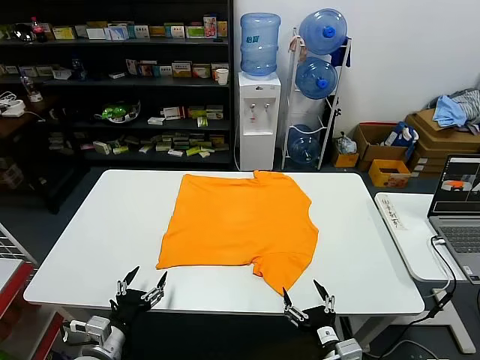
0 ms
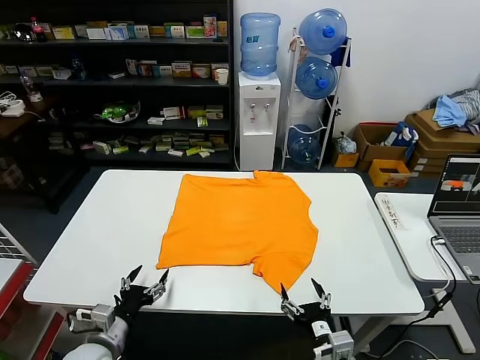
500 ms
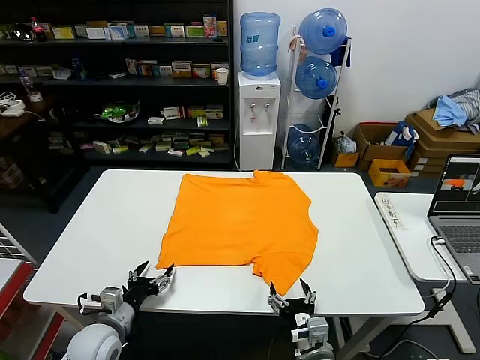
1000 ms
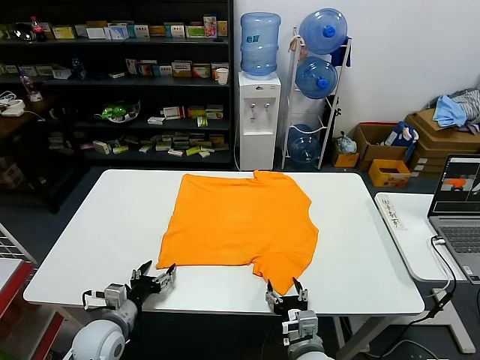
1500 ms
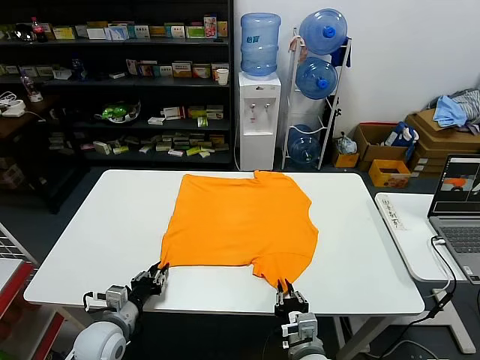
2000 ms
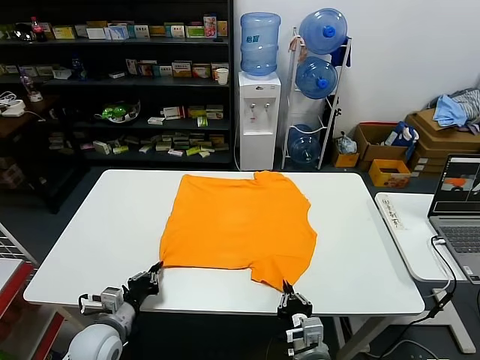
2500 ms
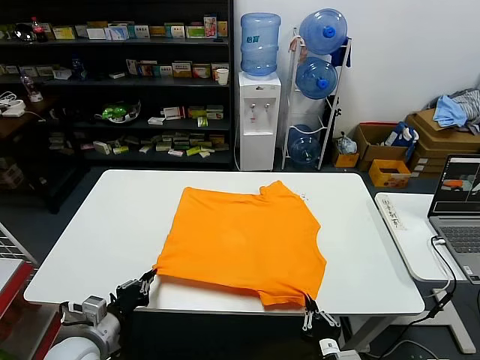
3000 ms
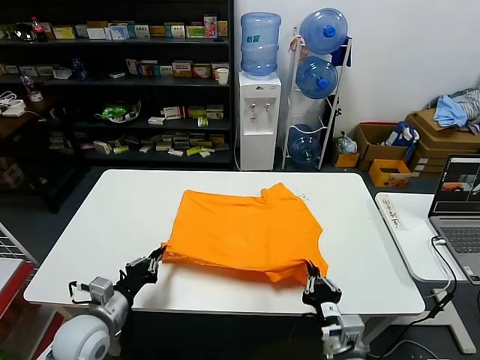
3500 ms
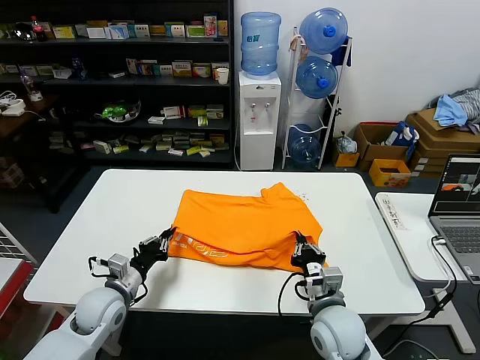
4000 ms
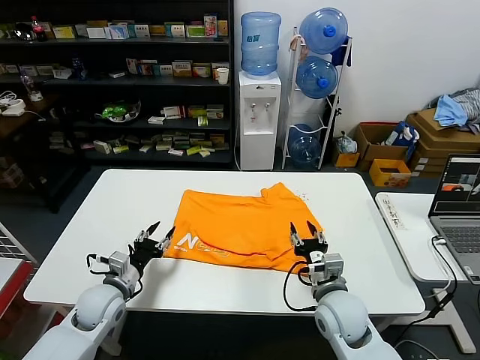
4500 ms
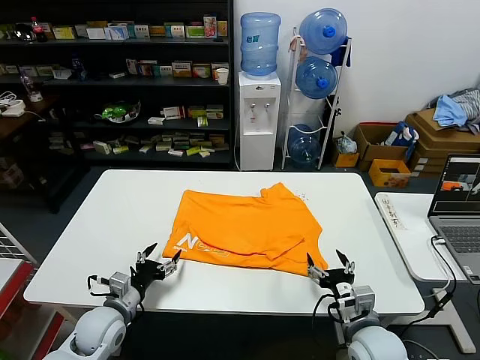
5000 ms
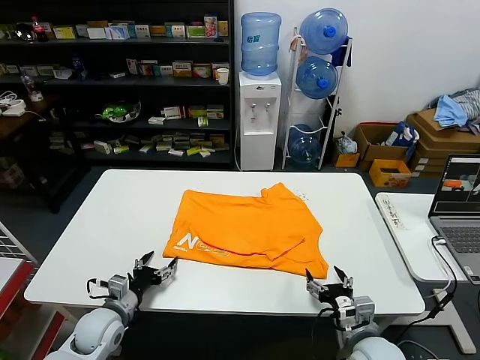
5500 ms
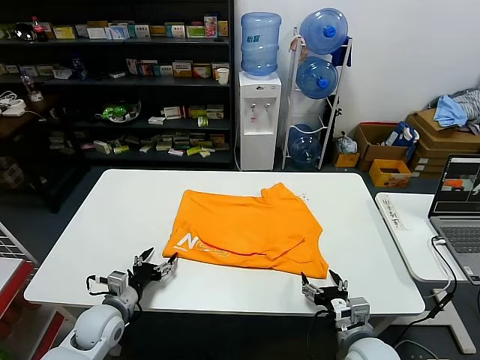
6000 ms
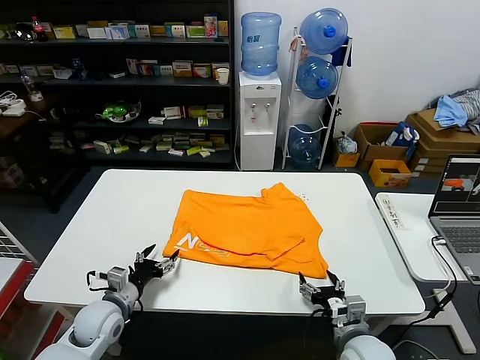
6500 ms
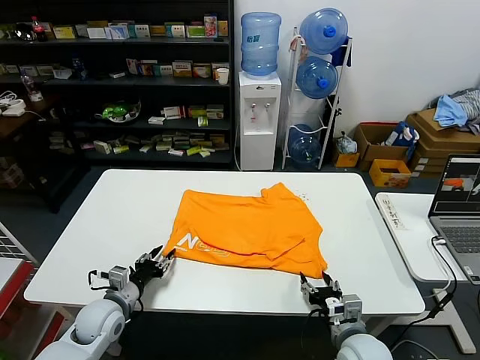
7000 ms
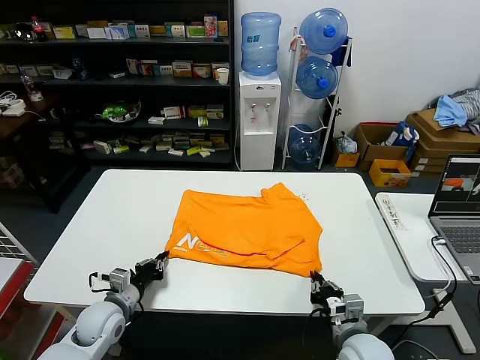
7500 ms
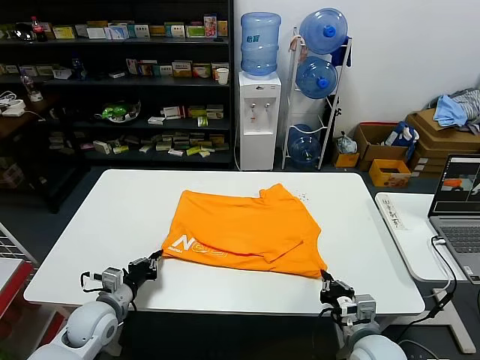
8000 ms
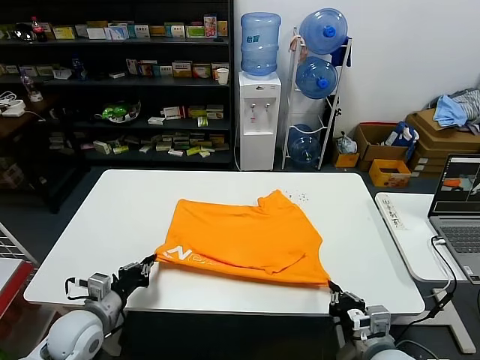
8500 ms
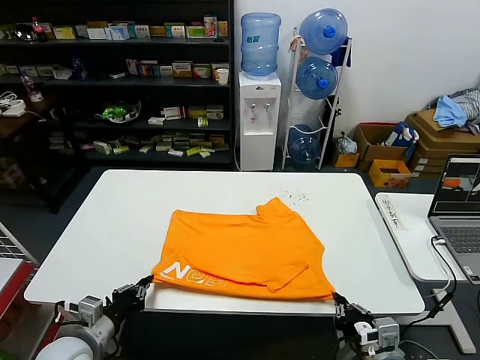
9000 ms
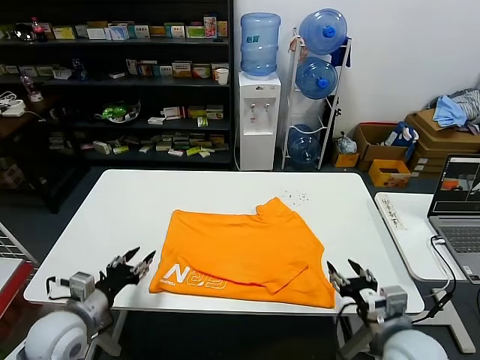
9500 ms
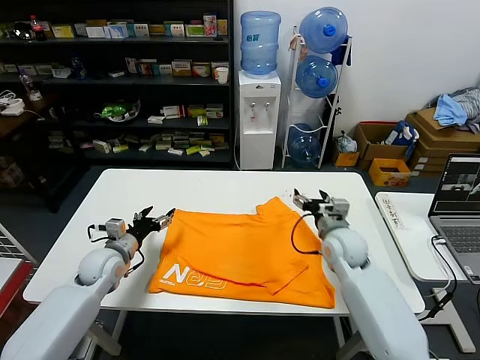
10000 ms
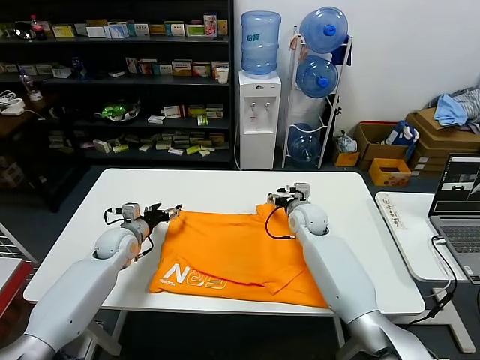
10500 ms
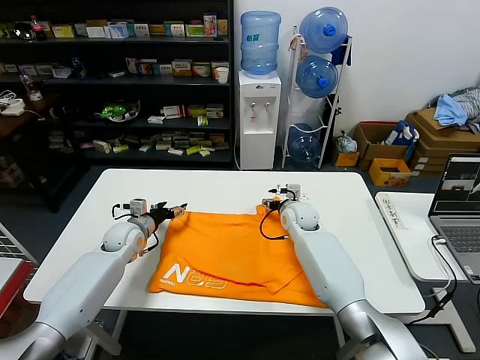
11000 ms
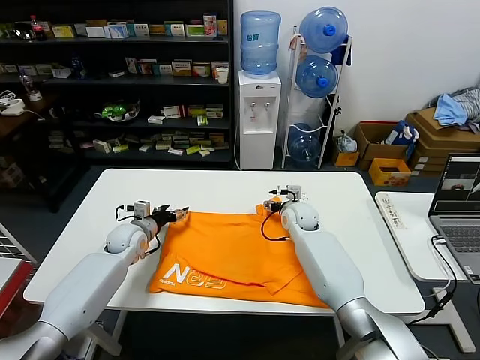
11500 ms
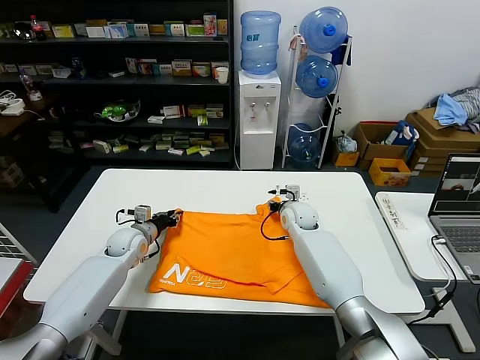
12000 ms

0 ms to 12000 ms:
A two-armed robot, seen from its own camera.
Task of the whole recording: fold and organize the clothes.
Step, 0 ms to 2500 ms: use both grippers simultaneously to clamp the lower edge of the clothing fabric.
Step, 3000 ms to 4500 ms: use both grippers to drag the lower edge of the fabric forward and fold it over the upper edge.
Step, 5000 ms to 9000 ms: Drag the clothes downward with both gripper.
2000 ms to 4000 ms: The left gripper shifts some 5 cm forward. The right gripper moves forward and upward, roughly 10 cm.
4000 ms to 6000 ms: The left gripper shifts by approximately 5 cm, and opens its fingers. The right gripper moves to the right and backward, roughly 10 cm, and opens up.
6000 ms to 8000 ms: The right gripper closes; the left gripper closes up.
8000 ms to 10000 ms: The right gripper shifts some 25 cm forward, and opens up, while the left gripper travels forward by some 10 cm, and opens.
10000 ms to 12000 ms: The right gripper is displaced forward and to the left by about 10 cm, and closes. Meanwhile the left gripper heads forward, covering approximately 10 cm, and closes.

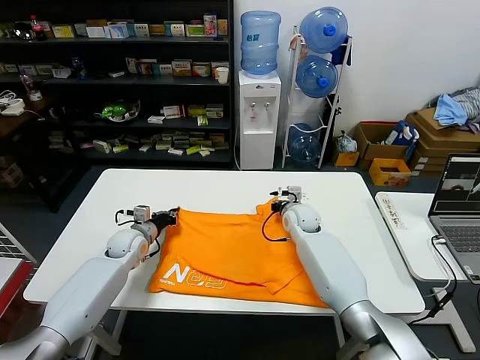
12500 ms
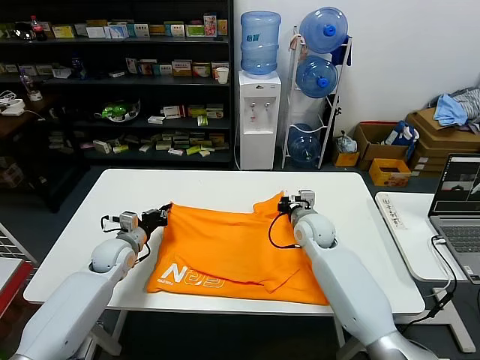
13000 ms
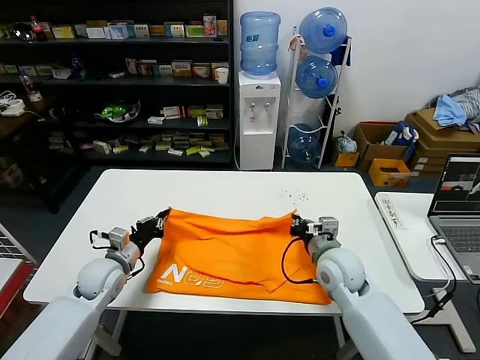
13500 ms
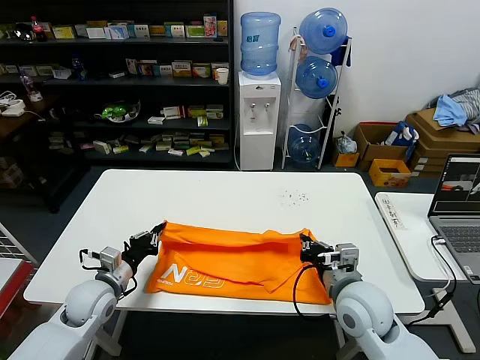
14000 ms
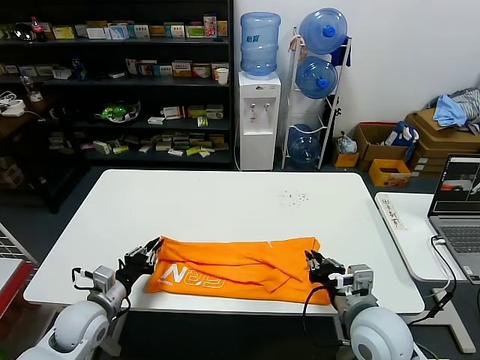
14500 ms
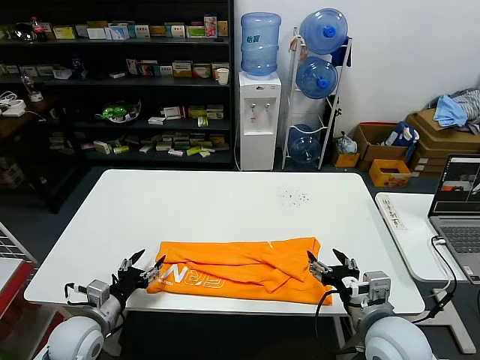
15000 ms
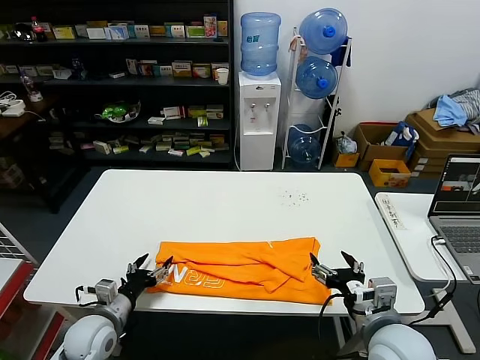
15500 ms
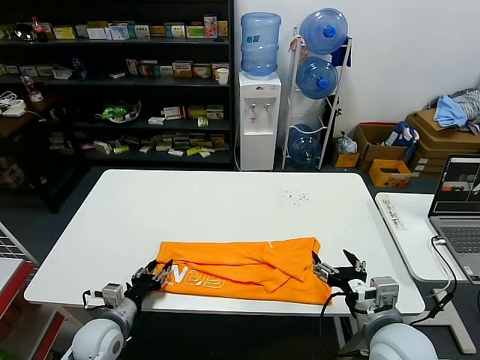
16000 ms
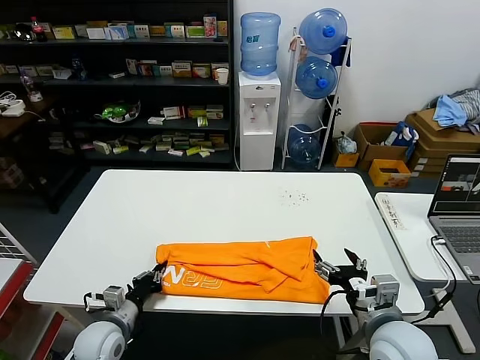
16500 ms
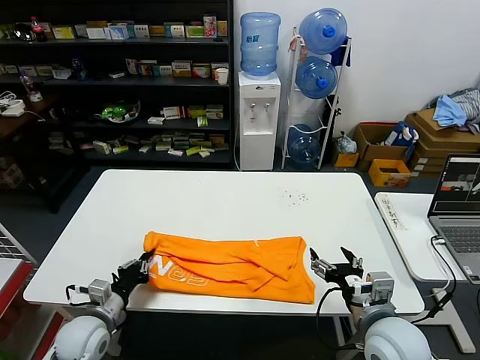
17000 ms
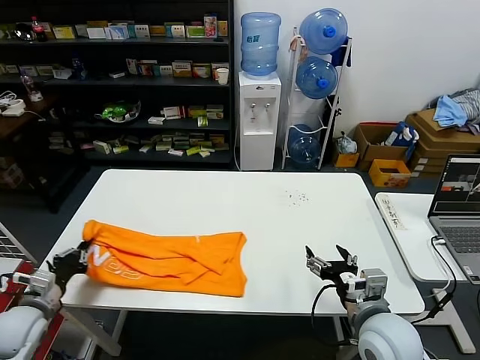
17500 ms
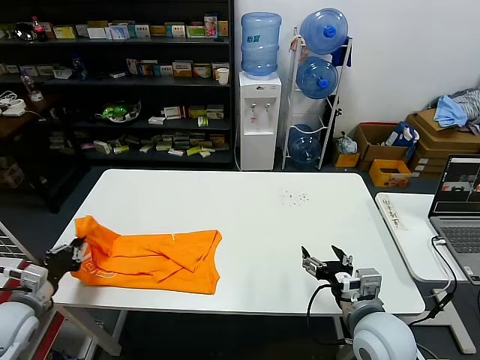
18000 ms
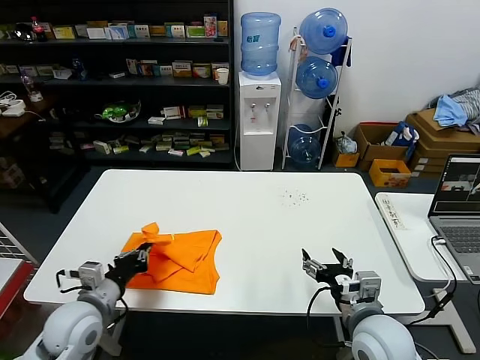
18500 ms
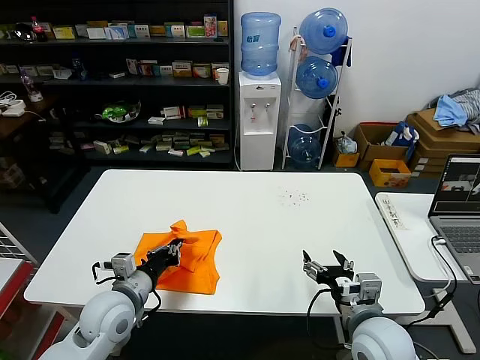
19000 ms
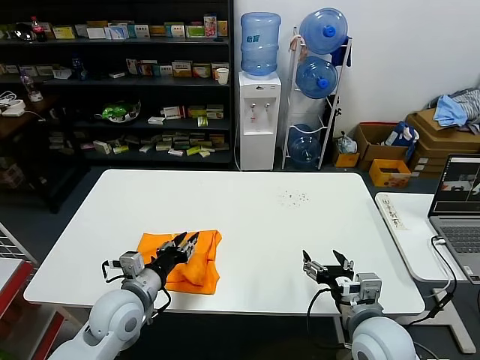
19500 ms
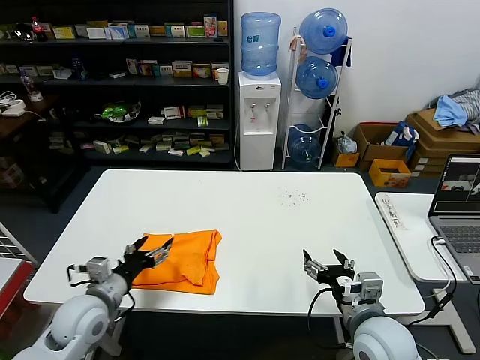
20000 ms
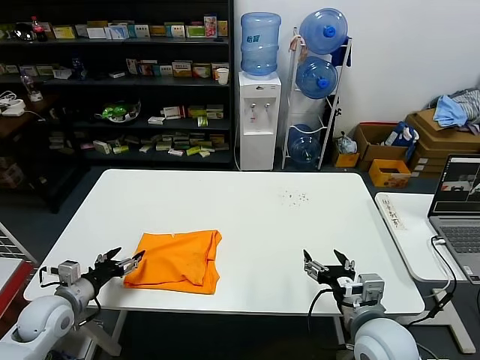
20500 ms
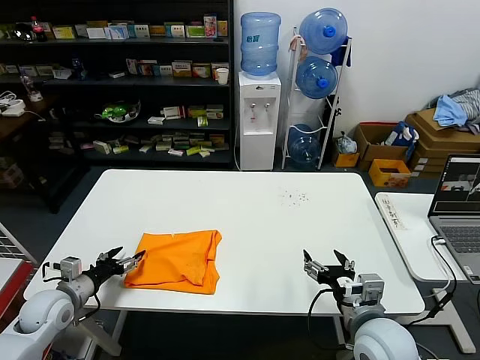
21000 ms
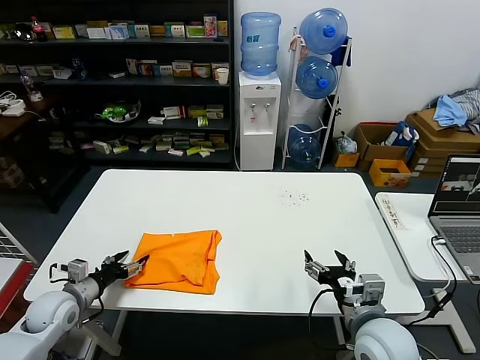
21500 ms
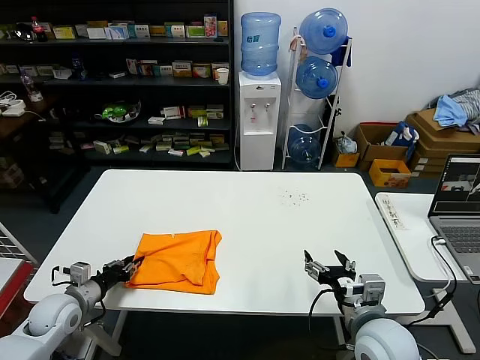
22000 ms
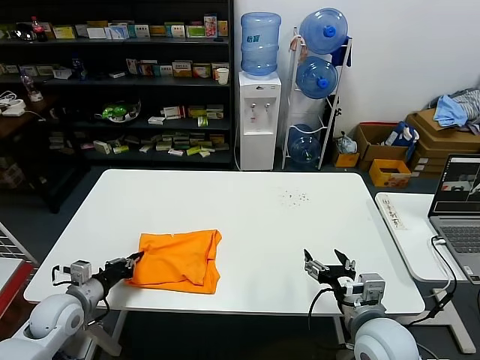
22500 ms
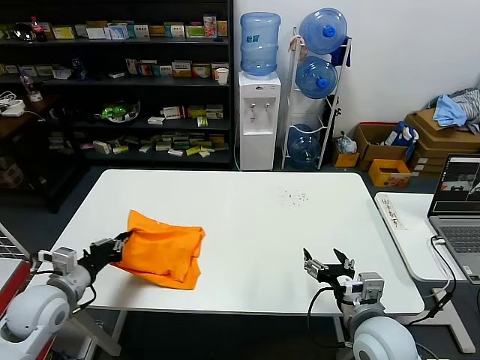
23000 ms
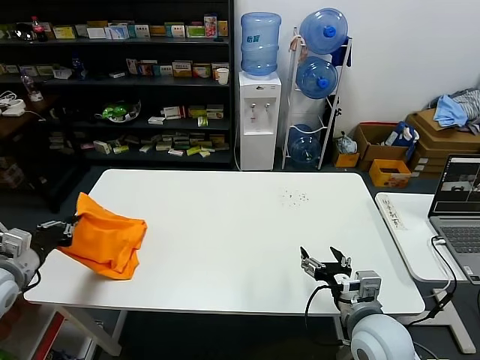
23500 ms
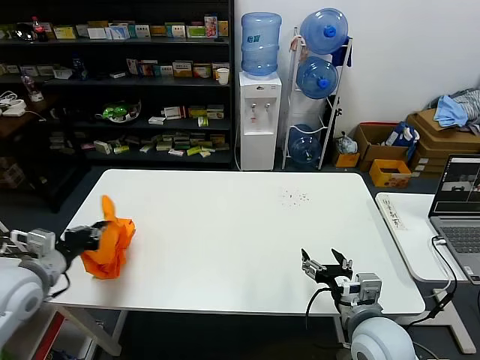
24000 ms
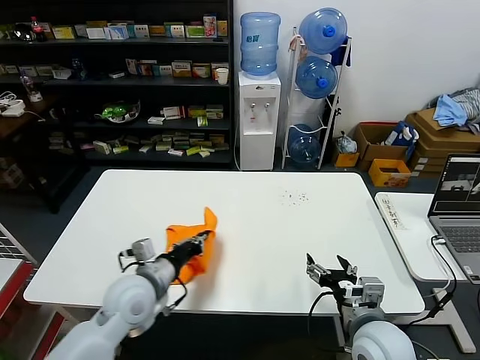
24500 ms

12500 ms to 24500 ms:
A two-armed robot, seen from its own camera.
Task of the whole recording: fold and organize the clothes.
Step, 13000 ms to 14500 ms: use both grippers to drag the upper edge of the fabric backward and fold it over the lower edge.
Step, 15000 ms to 16000 ms: use the left gripper to clamp the left edge of the fabric.
Step, 16500 ms to 19500 ms: use the left gripper to drag the left edge of the fabric to the left and folds it over the right edge.
12500 ms to 14500 ms: The right gripper travels backward by roughly 30 cm. Meanwhile the left gripper travels backward by some 20 cm.
14500 ms to 16500 ms: The right gripper opens its fingers. The left gripper heads downward, covering some 5 cm, and opens and closes again.
16500 ms to 18500 ms: The left gripper moves upward, some 10 cm, and goes to the left and returns, about 15 cm each way.
18500 ms to 20500 ms: The left gripper shifts about 10 cm to the left, and opens up.
20500 ms to 22500 ms: The left gripper closes.
22500 ms to 24500 ms: The left gripper moves to the right and upward, roughly 20 cm.

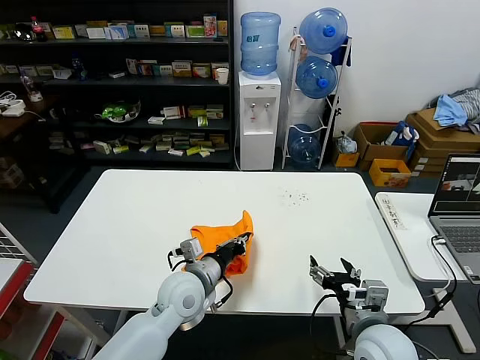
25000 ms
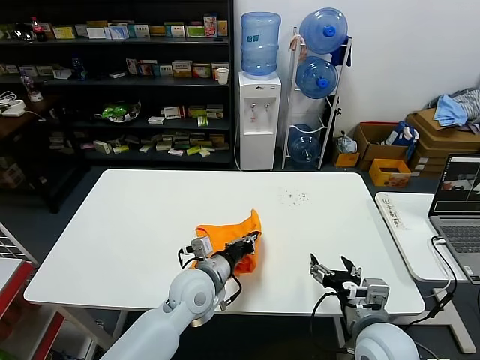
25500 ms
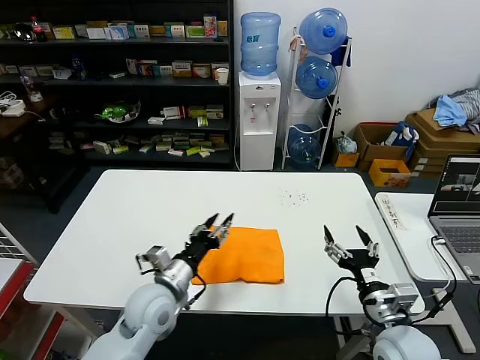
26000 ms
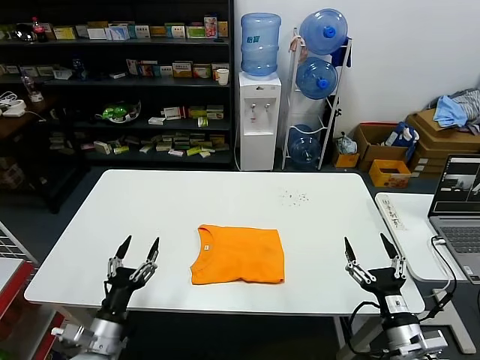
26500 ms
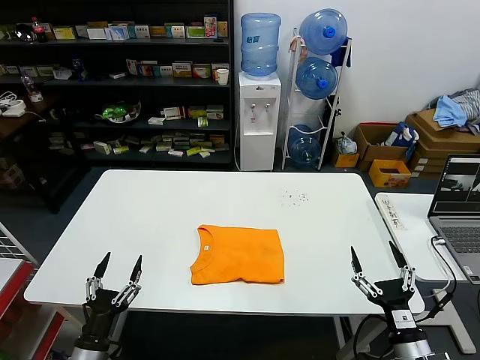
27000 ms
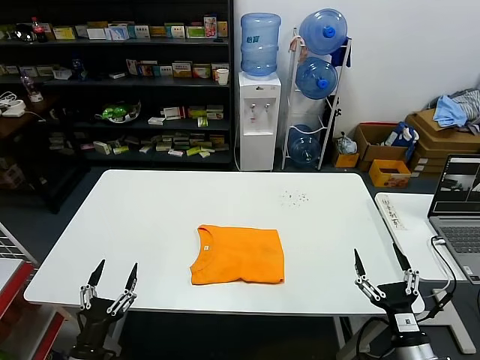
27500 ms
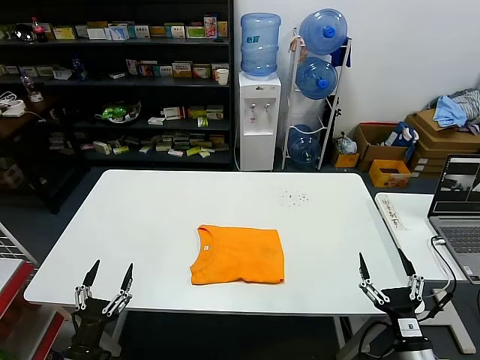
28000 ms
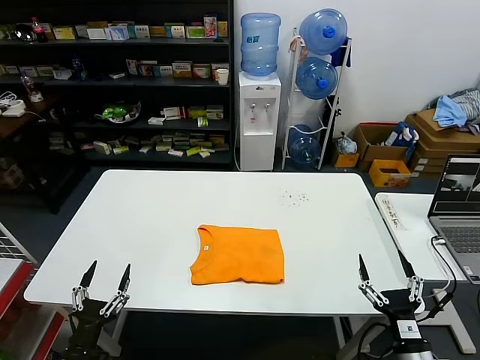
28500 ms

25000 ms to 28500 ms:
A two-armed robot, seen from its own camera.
Task of the whole recording: fold and organize the clothes.
25000 ms to 27000 ms: The left gripper goes approximately 30 cm to the left, backward and downward, and opens its fingers; the right gripper is displaced to the right, backward and downward by about 10 cm.
27000 ms to 28500 ms: There are only small adjustments of the grippers.
